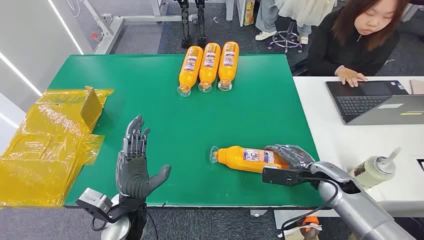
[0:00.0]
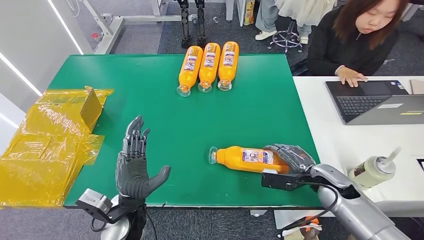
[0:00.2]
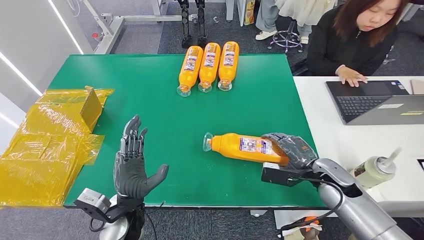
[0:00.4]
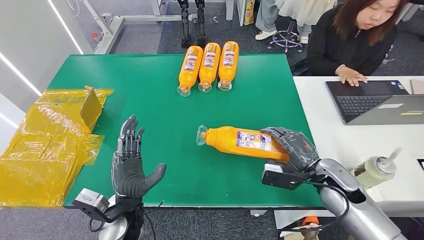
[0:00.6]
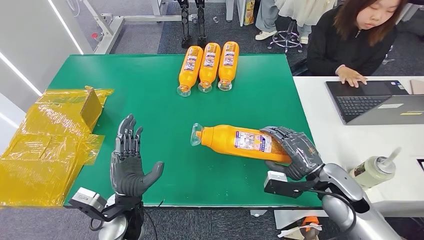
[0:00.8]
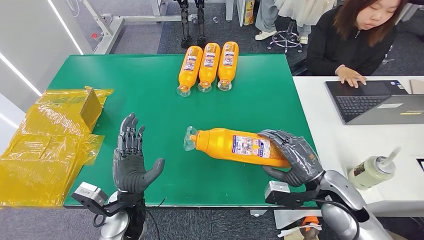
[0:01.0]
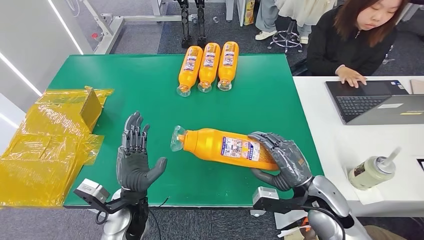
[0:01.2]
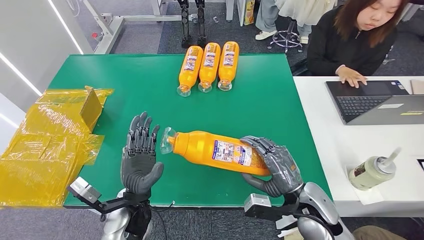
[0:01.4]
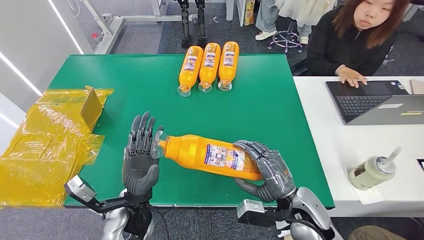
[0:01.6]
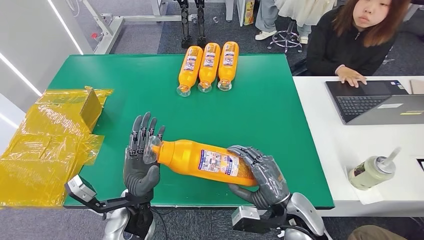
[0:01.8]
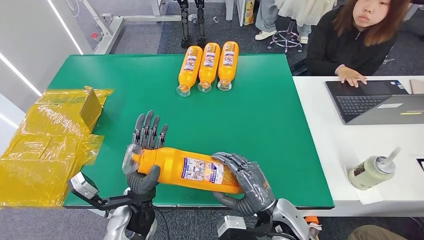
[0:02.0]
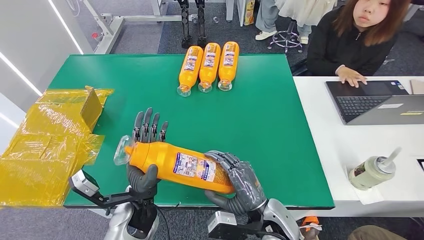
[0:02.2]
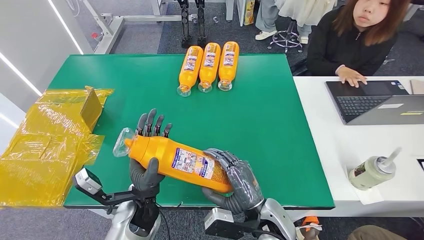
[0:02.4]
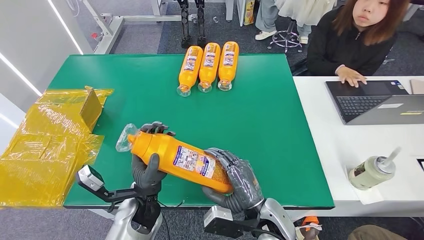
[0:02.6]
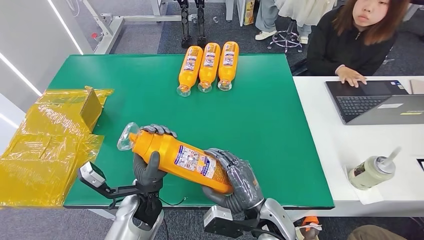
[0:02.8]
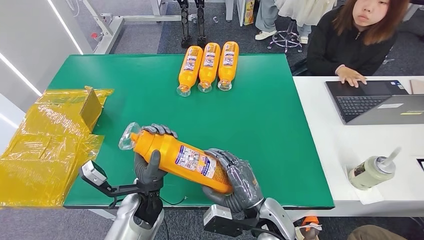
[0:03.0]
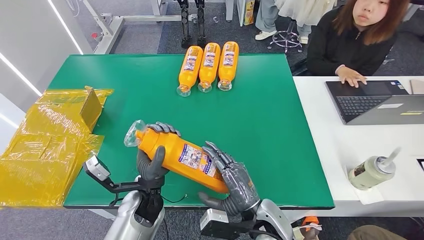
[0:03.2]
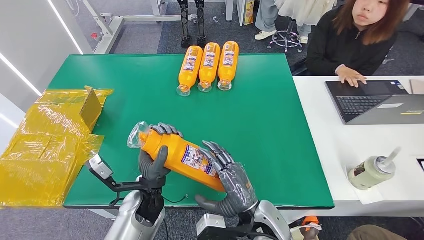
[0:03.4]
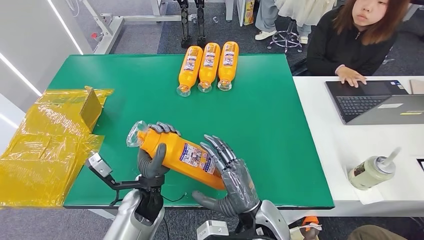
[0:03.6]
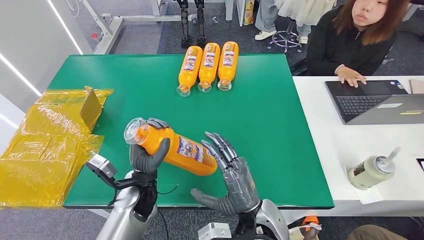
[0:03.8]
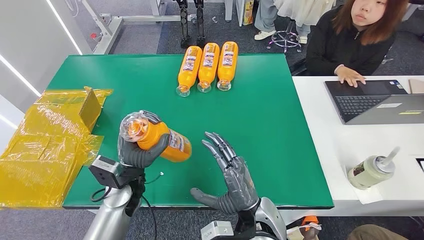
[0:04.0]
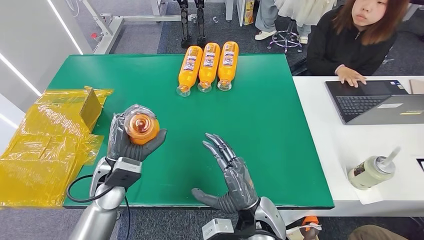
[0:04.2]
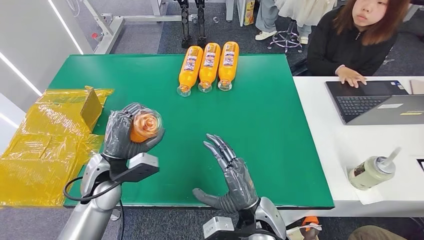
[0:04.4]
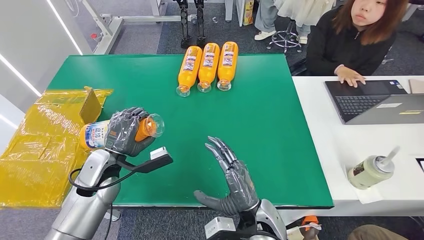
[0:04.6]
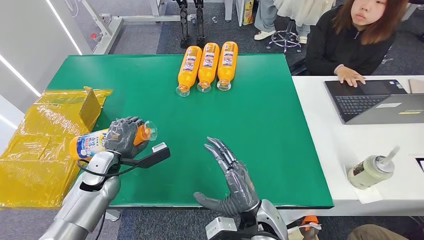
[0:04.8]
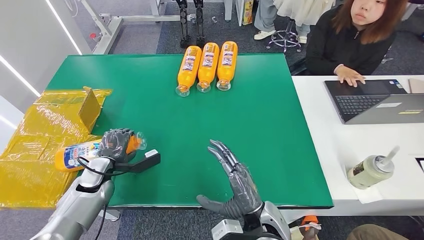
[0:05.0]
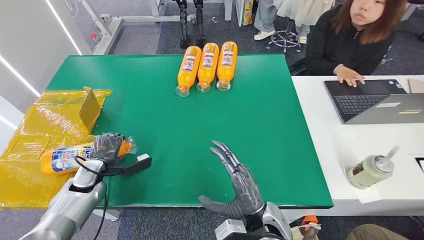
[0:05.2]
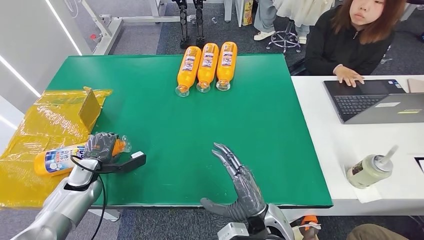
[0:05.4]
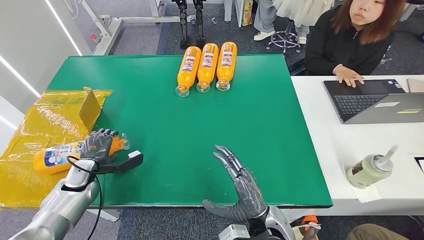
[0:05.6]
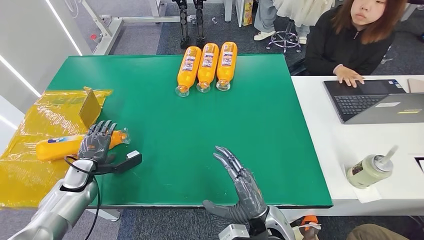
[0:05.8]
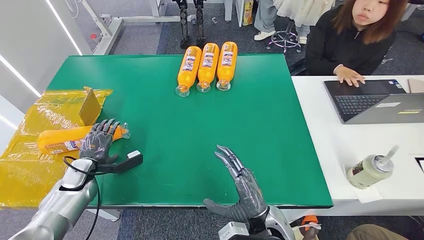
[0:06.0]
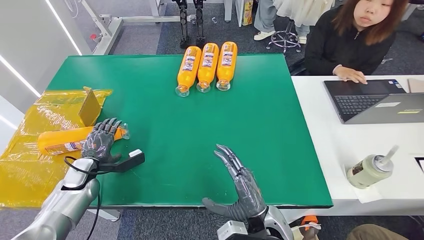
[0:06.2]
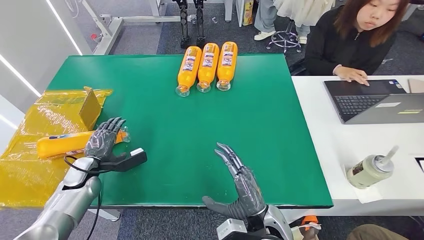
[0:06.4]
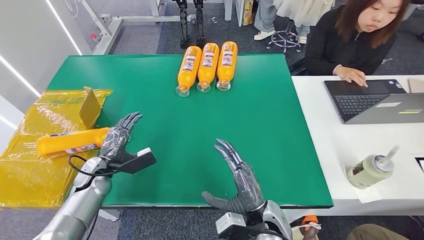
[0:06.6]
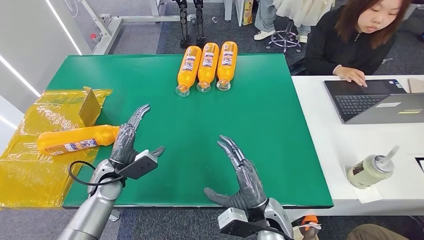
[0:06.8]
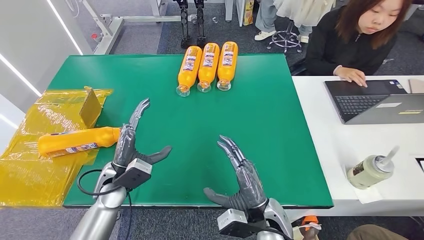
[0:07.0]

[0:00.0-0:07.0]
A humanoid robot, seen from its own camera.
Step, 0:00.0 to 0:02.0: Pick up the bottle from the table.
Step, 0:02.2 to 0:06.8: Turn the bottle to the front side.
0:01.4 to 0:02.8: The right hand shifts about 10 cm to the left.
0:02.8 to 0:04.2: The left hand heads to the left and forward, covering roughly 10 cm.
0:04.2 to 0:05.6: The left hand heads to the left and downward, covering roughly 20 cm.
0:05.6 to 0:07.0: The left hand heads to the right, covering about 15 cm.

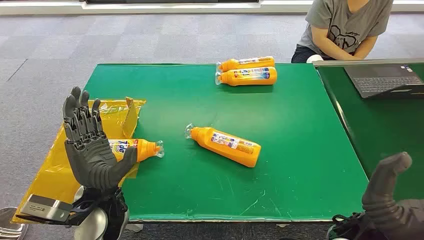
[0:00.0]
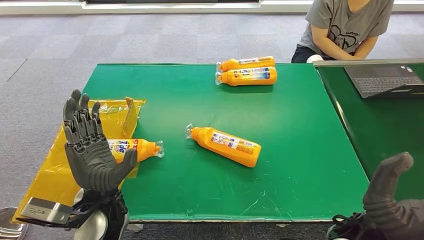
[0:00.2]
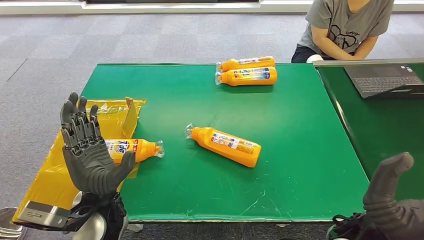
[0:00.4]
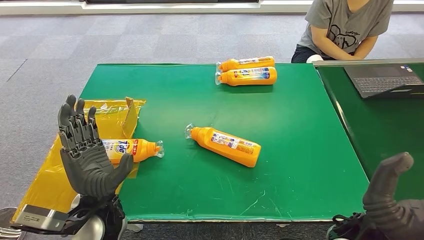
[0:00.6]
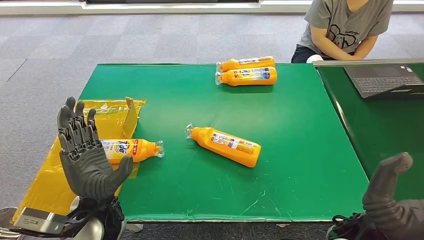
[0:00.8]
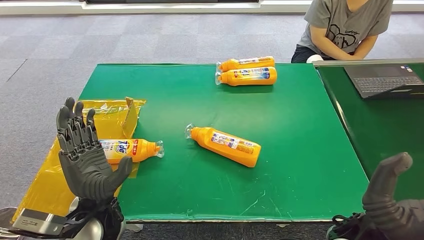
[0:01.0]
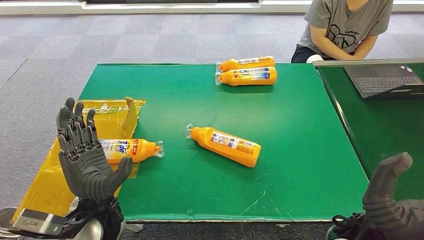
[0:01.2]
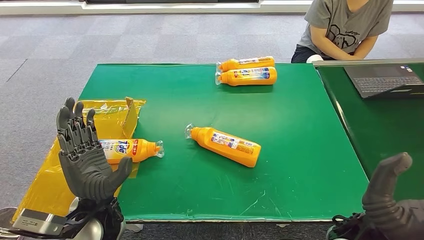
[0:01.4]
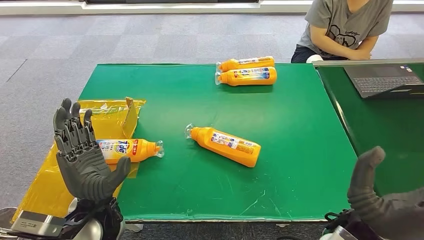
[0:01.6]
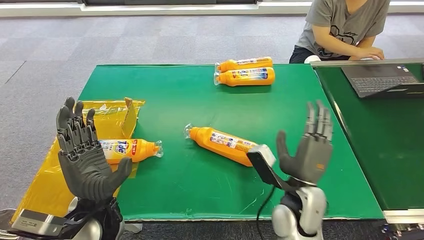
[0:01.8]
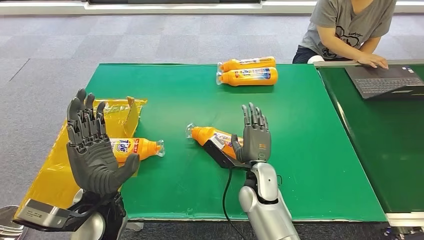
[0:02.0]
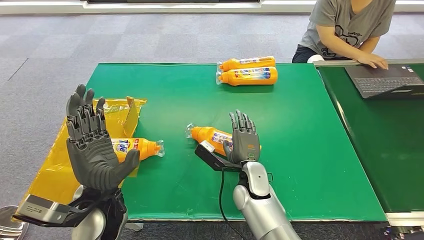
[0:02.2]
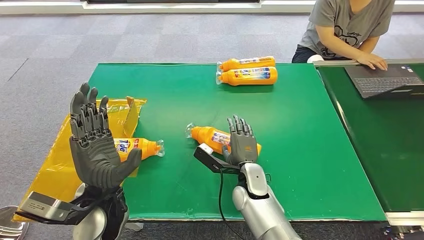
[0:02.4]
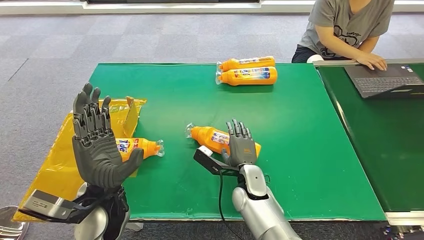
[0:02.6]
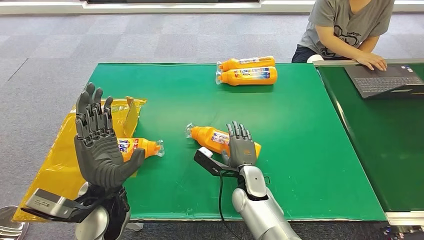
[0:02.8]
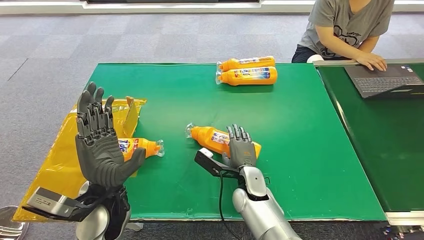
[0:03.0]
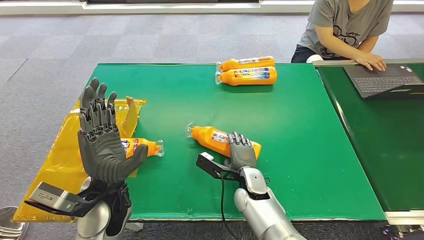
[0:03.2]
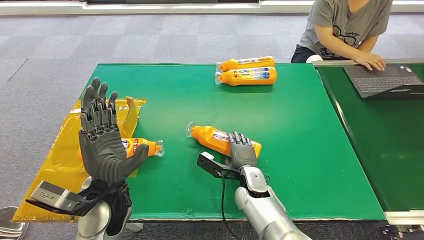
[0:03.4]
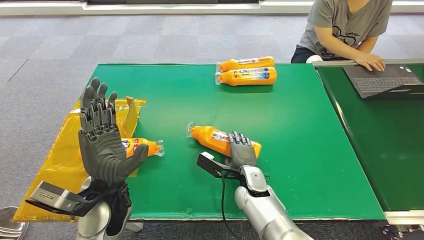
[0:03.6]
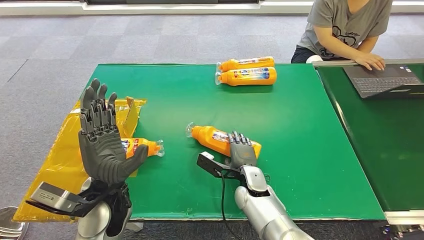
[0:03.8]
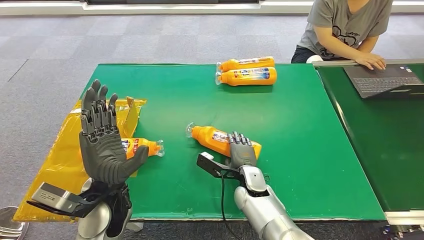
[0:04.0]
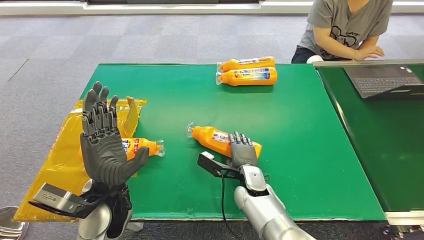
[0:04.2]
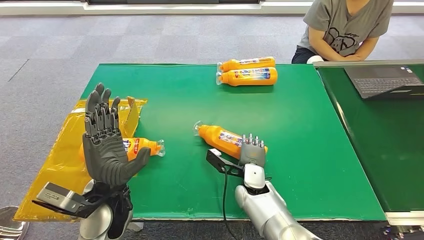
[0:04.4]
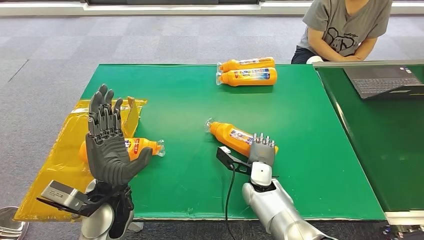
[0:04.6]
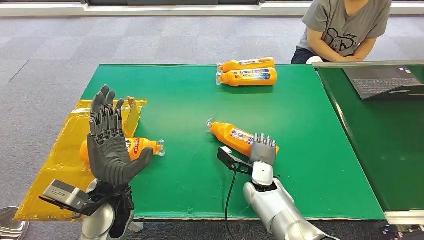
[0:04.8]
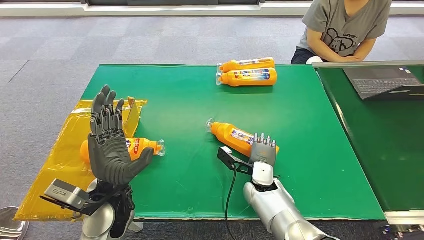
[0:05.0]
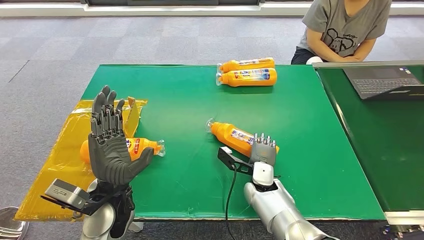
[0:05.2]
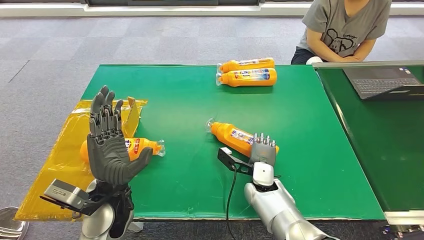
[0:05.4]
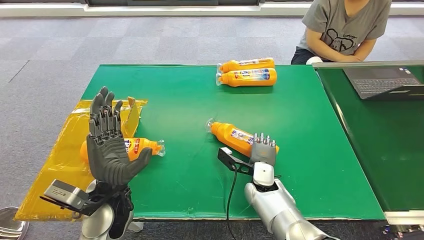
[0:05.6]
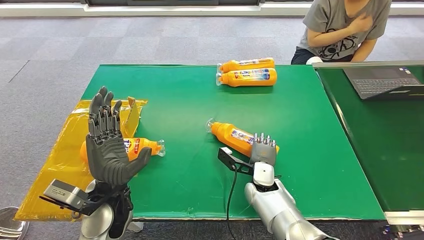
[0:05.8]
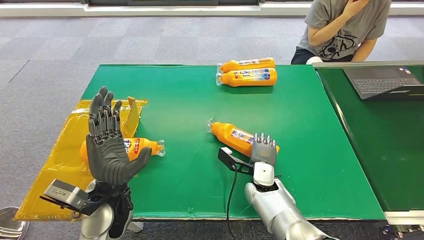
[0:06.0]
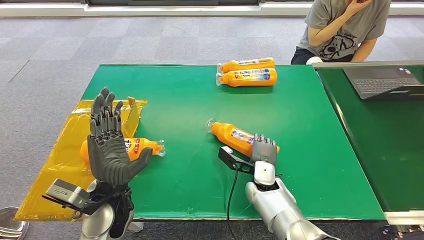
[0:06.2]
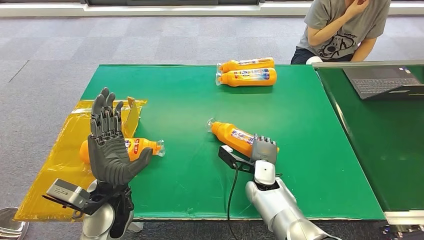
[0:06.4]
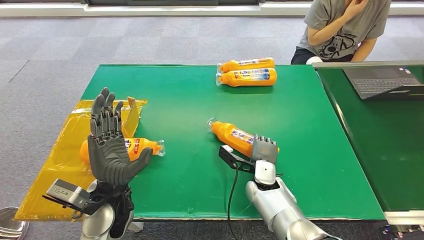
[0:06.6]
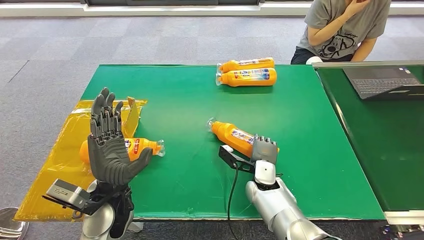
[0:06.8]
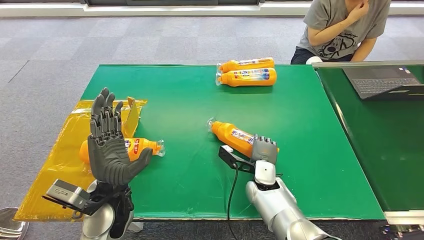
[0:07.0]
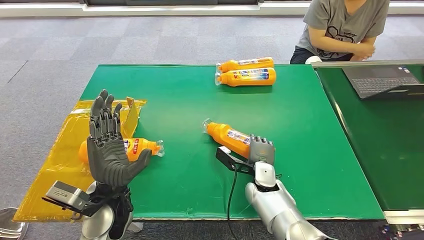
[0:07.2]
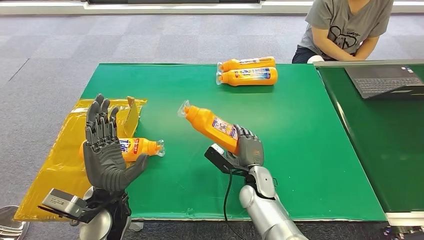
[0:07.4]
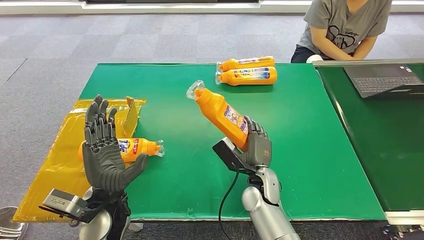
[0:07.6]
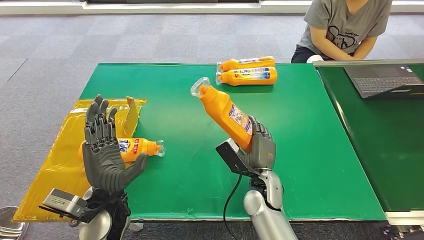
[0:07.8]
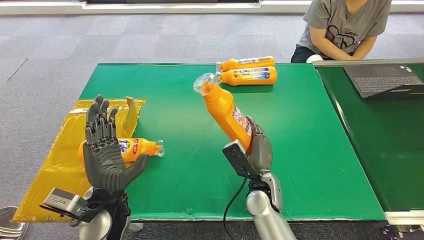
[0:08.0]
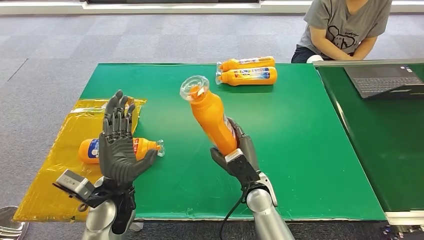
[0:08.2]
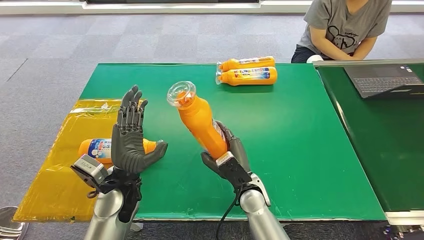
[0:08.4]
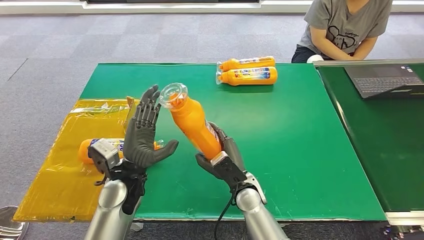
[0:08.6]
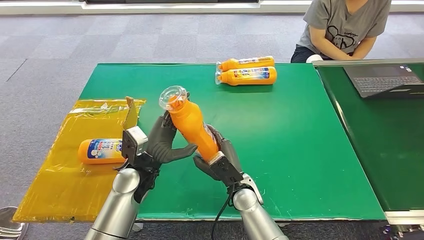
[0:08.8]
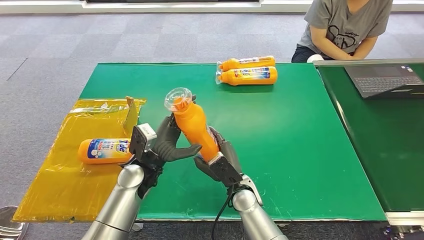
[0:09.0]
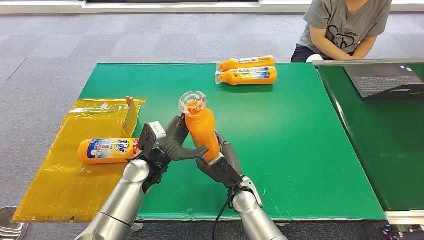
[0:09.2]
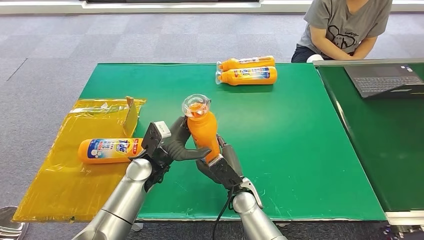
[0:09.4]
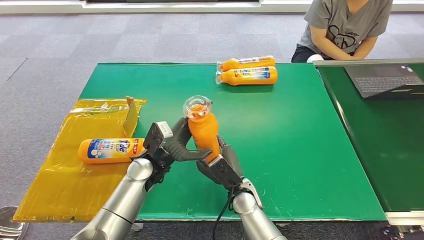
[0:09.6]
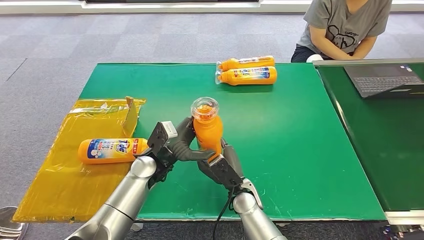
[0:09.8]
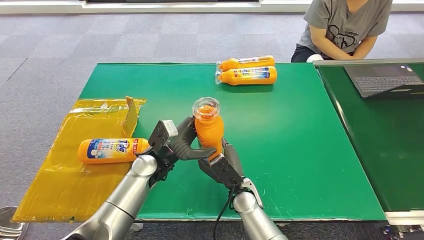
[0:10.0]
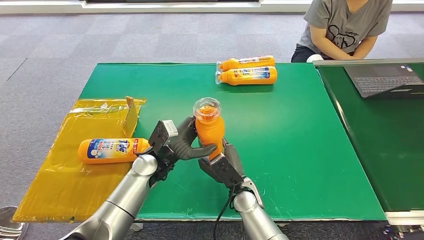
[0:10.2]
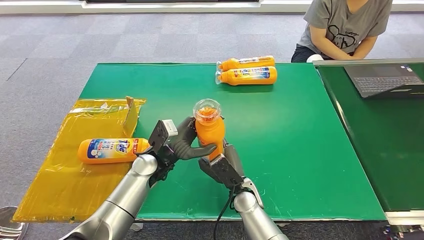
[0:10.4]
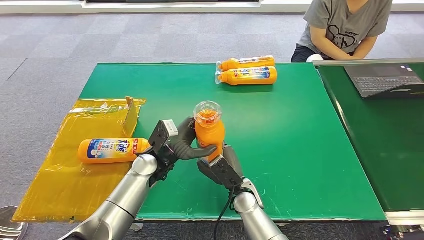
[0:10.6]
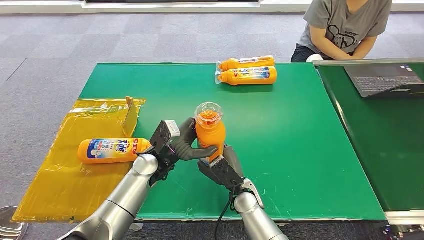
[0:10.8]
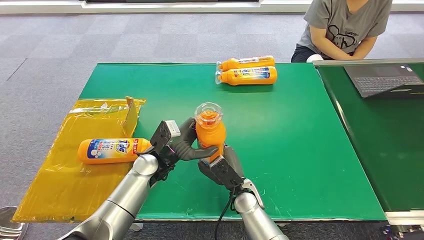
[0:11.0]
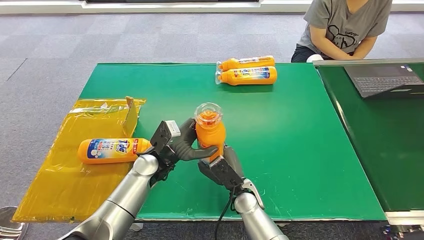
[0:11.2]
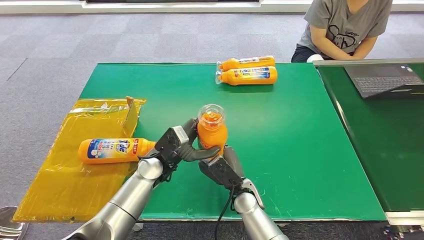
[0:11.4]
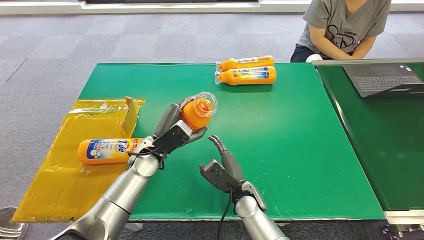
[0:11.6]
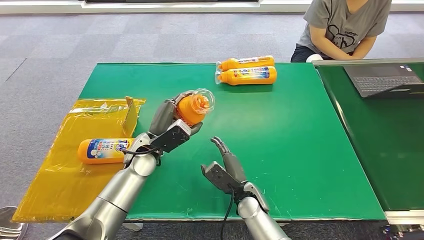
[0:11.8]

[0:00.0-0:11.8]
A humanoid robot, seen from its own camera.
Step, 0:00.0 to 0:07.8: Pick up the bottle from the table.
0:01.4 to 0:03.0: The right hand shifts approximately 25 cm downward, to the left and forward.
0:04.4 to 0:06.0: The hands stay close to where they were, moving slightly.
0:07.4 to 0:08.8: The left hand heads forward, covering about 10 cm. The right hand ends up approximately 5 cm from where it was.
0:08.8 to 0:10.4: There are only small adjustments of the hands.
